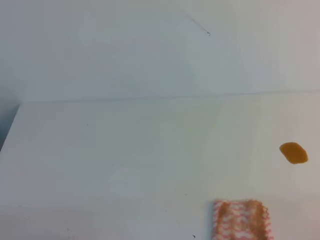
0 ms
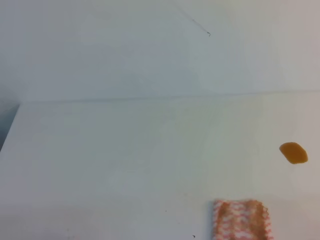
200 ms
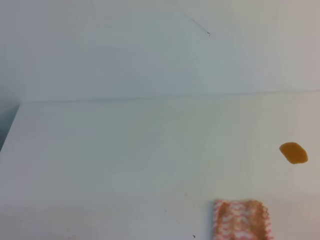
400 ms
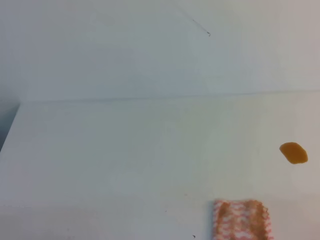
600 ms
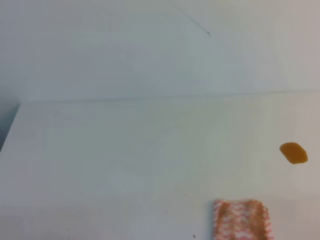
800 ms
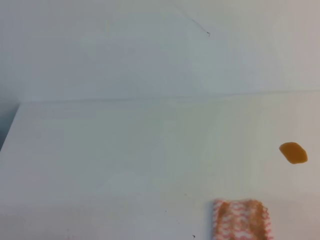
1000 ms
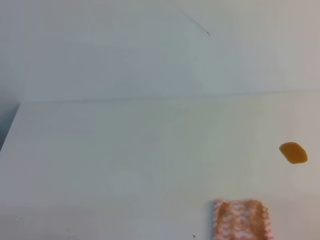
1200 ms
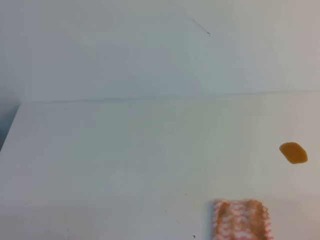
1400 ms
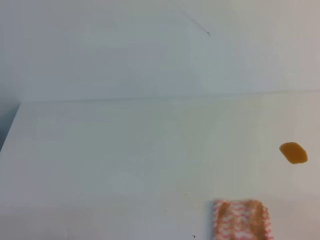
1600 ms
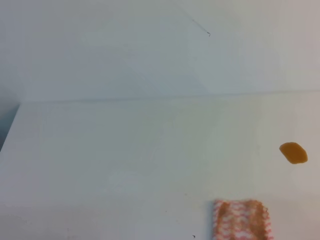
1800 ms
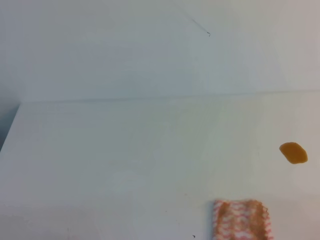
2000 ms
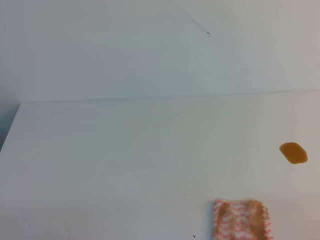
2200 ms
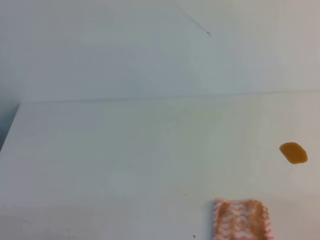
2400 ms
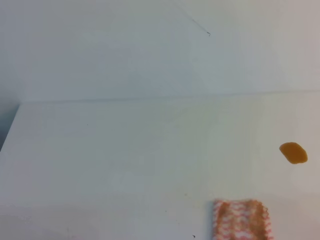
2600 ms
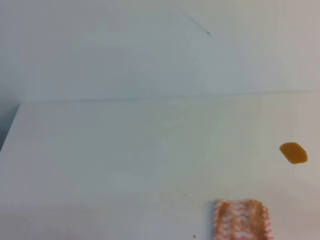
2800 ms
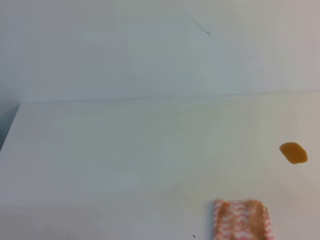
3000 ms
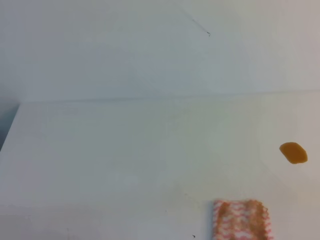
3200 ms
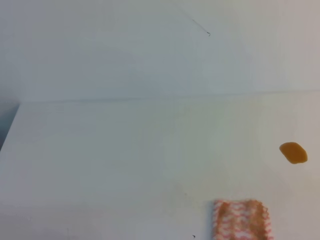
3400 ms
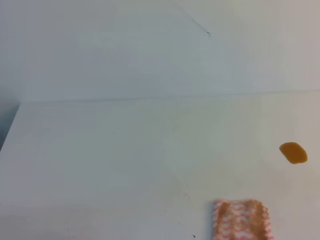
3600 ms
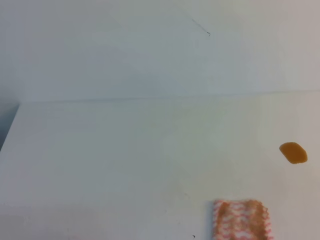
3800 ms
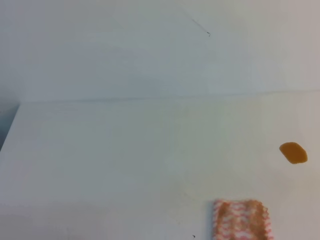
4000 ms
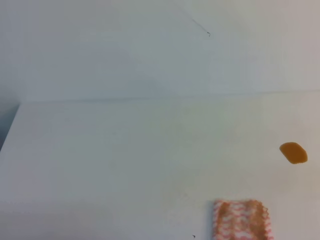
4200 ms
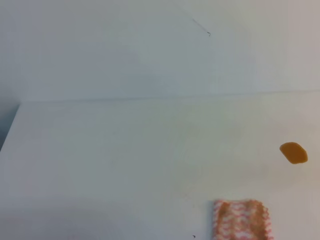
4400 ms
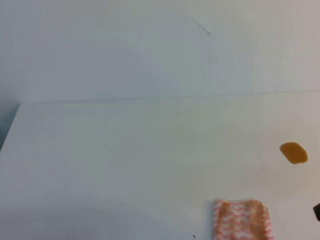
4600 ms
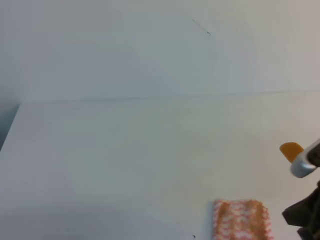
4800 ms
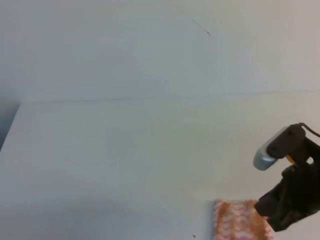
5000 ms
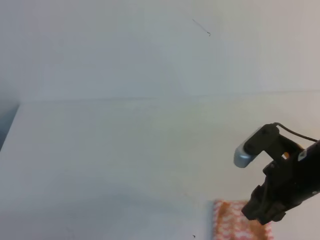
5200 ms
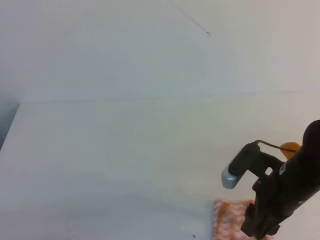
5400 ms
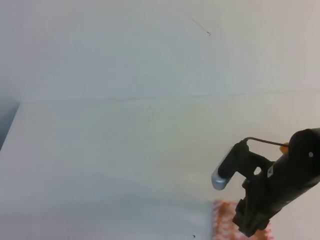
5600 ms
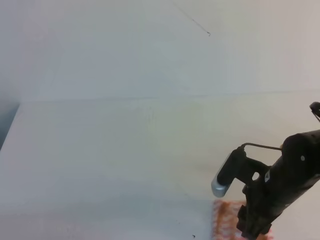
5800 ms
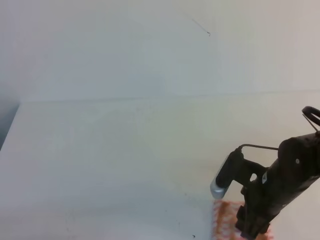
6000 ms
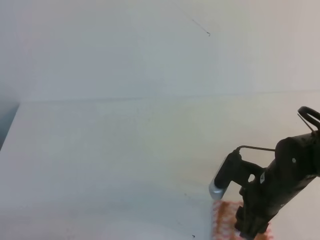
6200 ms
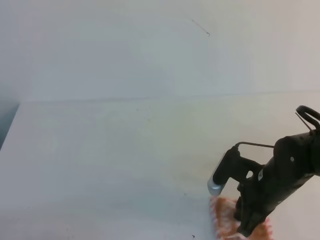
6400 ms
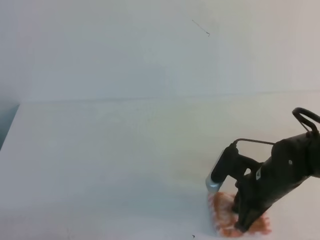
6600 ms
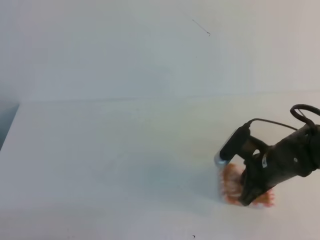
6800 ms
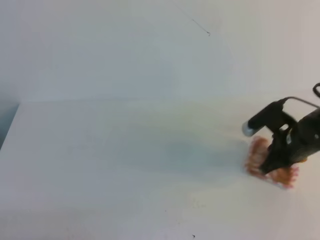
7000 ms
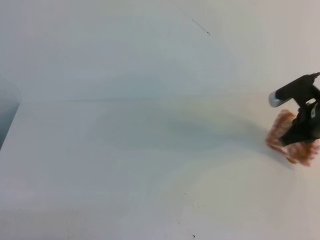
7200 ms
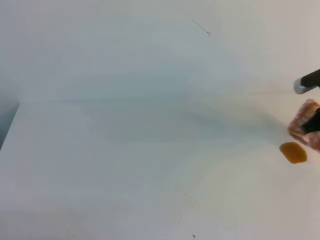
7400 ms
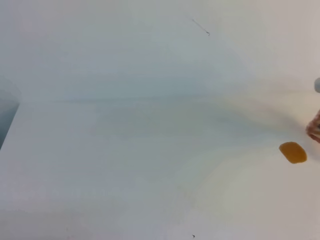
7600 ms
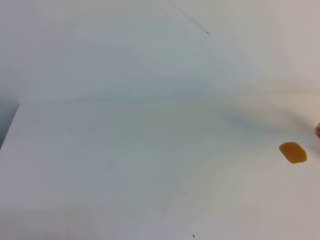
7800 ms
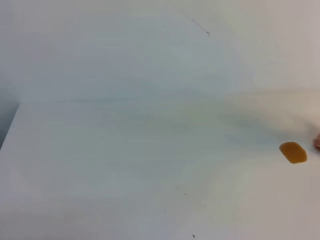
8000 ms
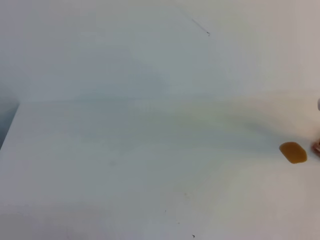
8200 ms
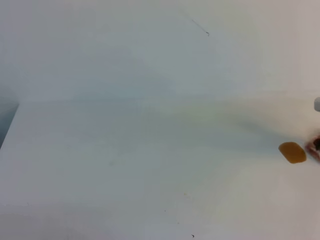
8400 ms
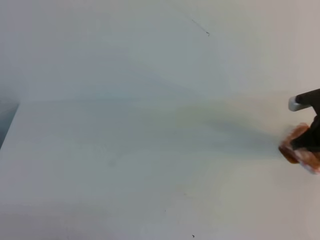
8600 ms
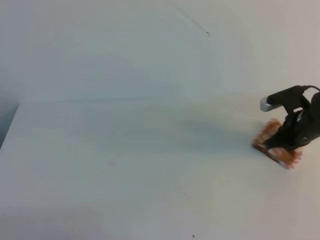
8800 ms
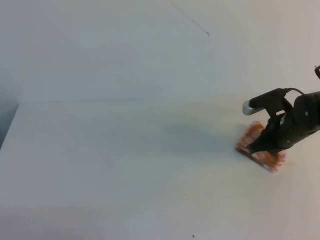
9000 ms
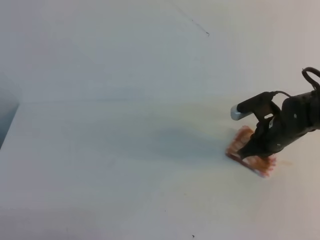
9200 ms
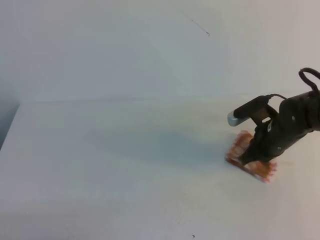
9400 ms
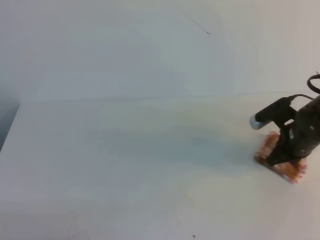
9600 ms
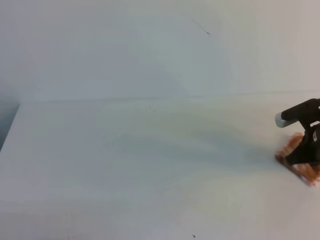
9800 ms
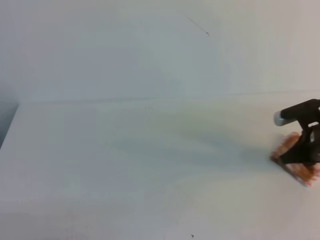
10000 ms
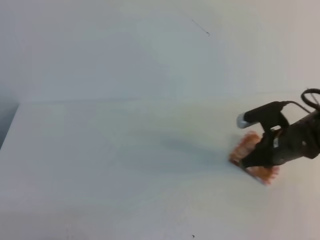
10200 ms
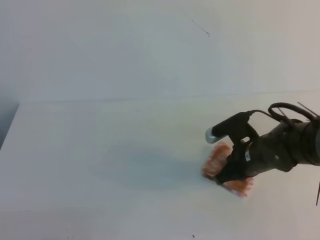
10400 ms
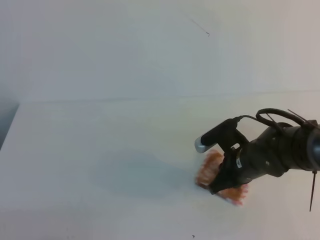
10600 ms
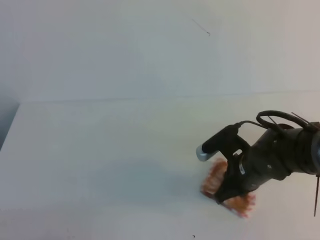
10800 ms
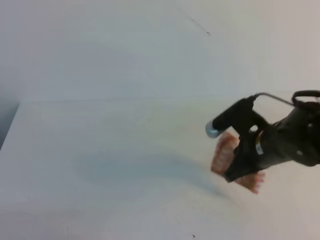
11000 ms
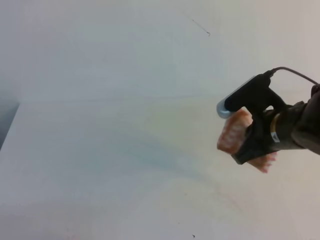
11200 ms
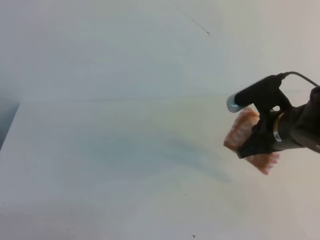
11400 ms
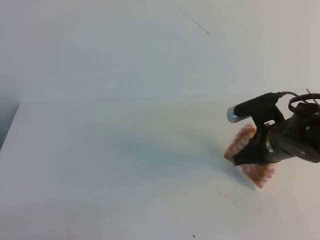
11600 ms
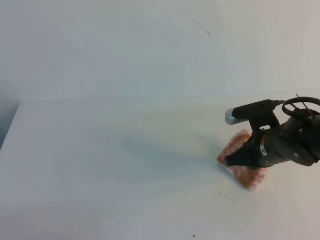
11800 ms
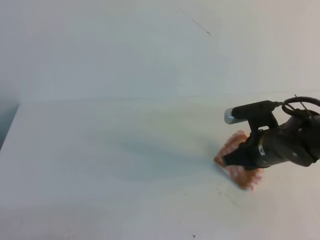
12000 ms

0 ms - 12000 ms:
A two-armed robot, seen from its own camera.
0 ms - 1600 ms: Both grippers stay put.
4400 ms - 6000 ms: The right gripper travels downward, to the left and forward by approximately 20 cm, and opens its fingers.
6000 ms - 7600 ms: The right gripper goes about 20 cm to the right and forward, and closes its fingers.
7600 ms - 9000 ms: The right gripper shifts some 15 cm to the left and downward.
9000 ms - 10400 ms: The right gripper goes roughly 10 cm to the left and backward.
10400 ms - 12000 ms: The right gripper heads upward, covering roughly 5 cm.

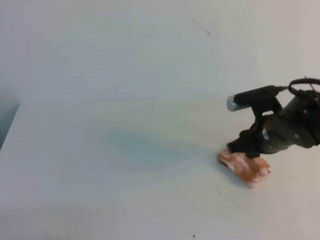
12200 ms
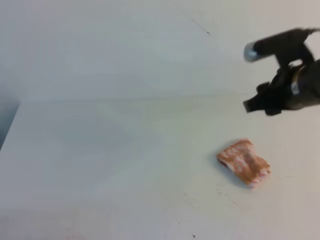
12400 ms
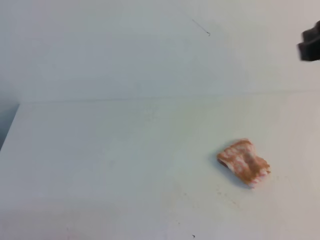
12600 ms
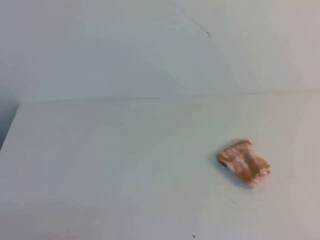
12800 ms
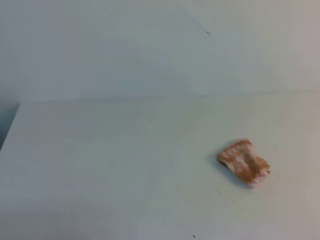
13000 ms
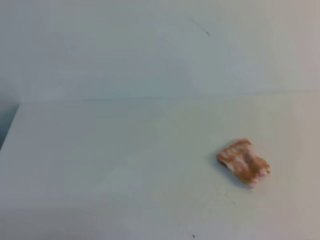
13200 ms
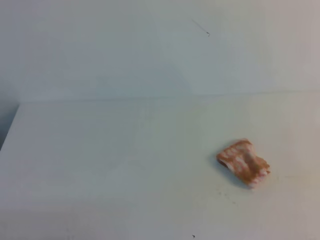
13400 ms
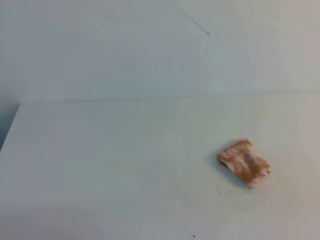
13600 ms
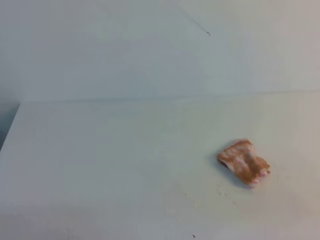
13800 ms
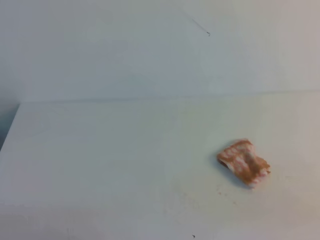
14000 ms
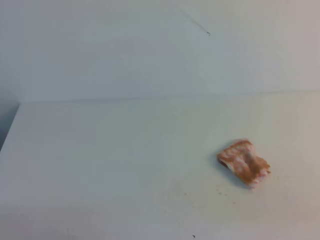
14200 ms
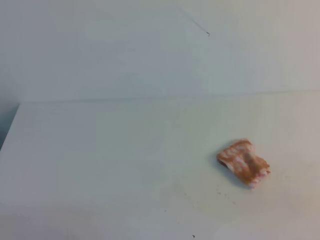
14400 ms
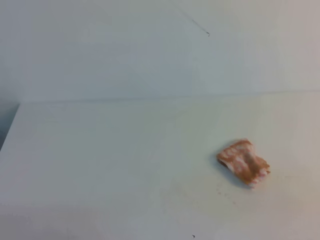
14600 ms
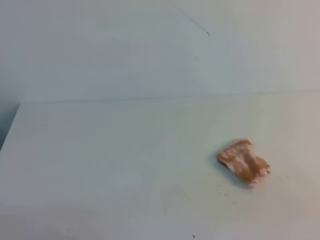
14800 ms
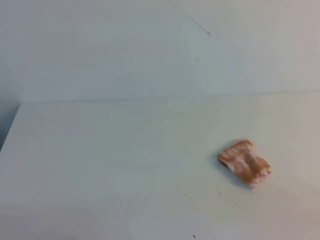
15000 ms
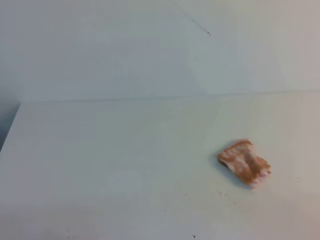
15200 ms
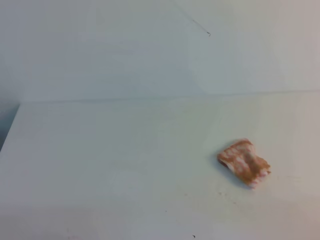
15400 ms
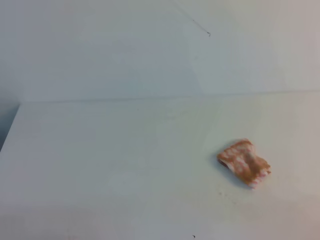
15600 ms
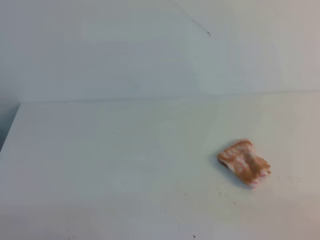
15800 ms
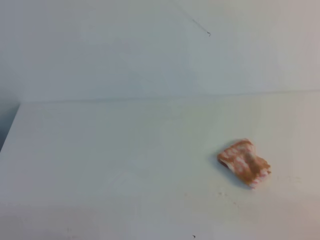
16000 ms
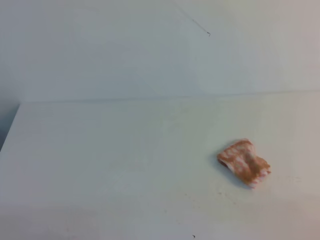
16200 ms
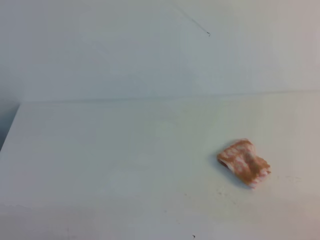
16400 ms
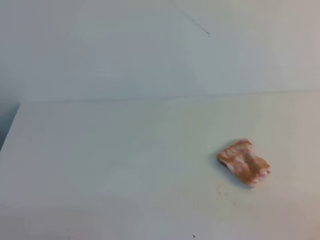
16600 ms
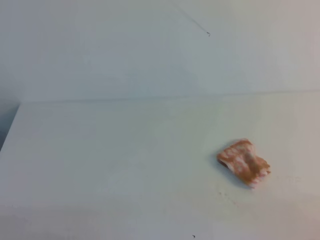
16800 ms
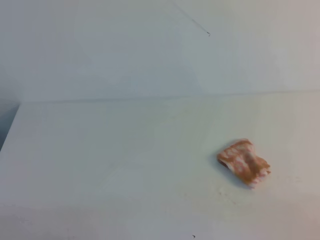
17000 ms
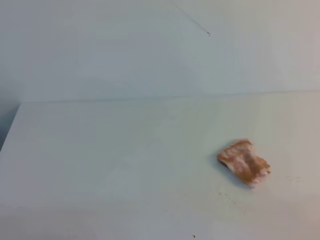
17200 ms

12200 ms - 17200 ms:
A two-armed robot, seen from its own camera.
12200 ms - 13800 ms: The right gripper moves backward and to the right, roughly 30 cm, and closes up.
15600 ms - 17200 ms: Neither gripper changes place.

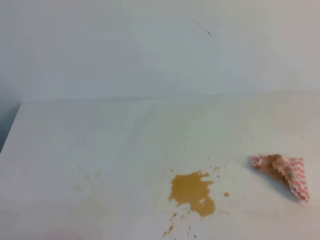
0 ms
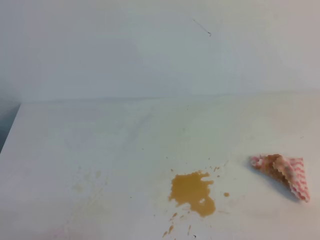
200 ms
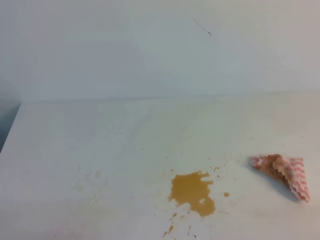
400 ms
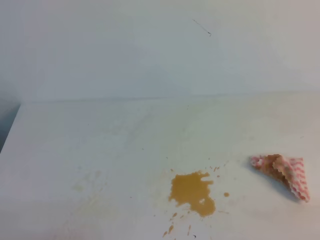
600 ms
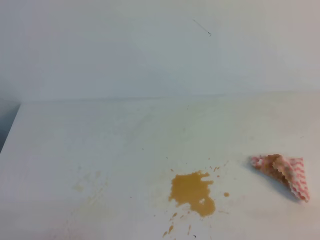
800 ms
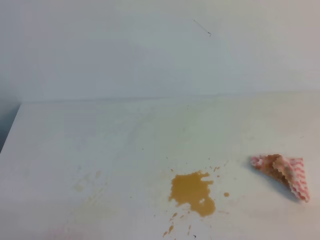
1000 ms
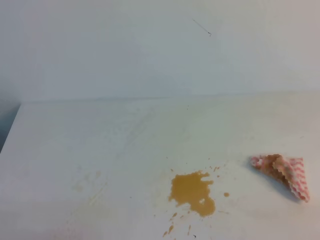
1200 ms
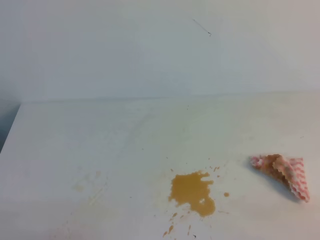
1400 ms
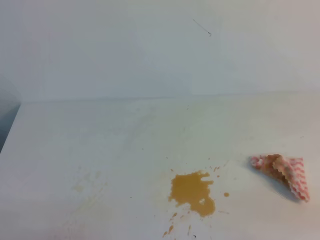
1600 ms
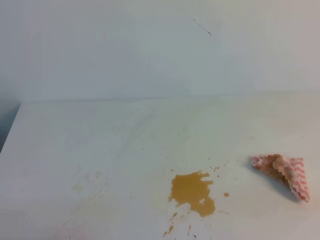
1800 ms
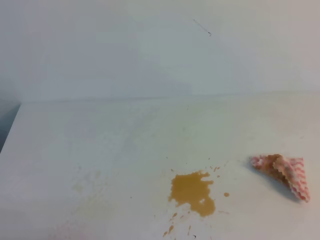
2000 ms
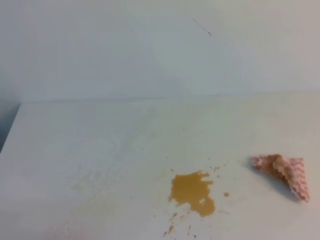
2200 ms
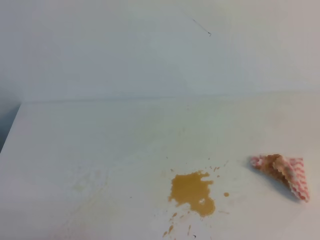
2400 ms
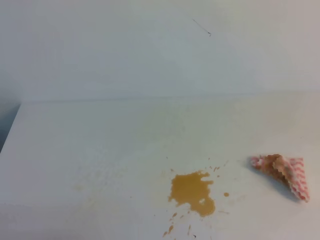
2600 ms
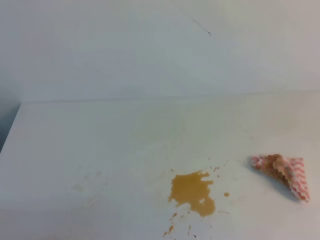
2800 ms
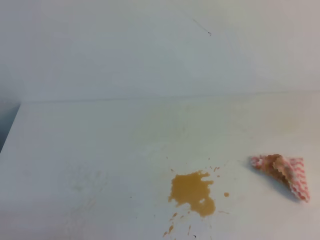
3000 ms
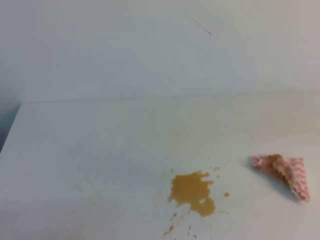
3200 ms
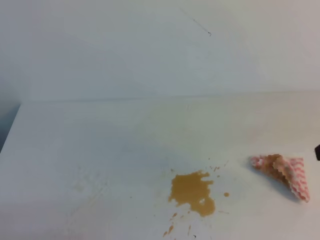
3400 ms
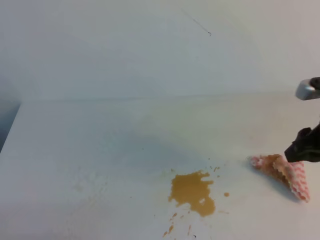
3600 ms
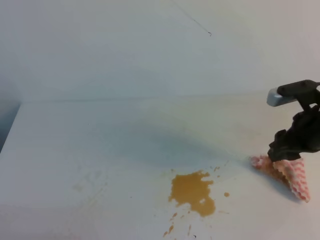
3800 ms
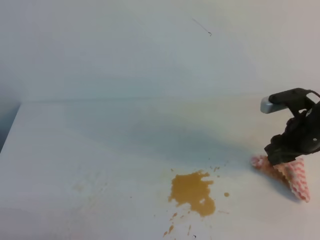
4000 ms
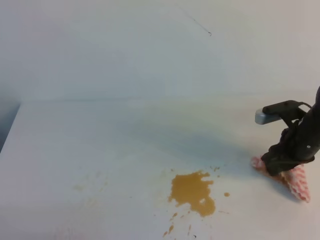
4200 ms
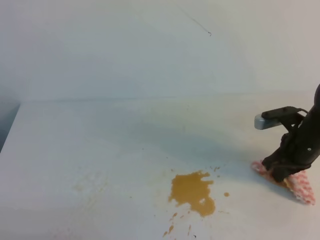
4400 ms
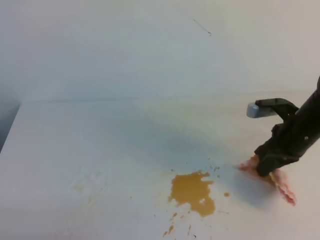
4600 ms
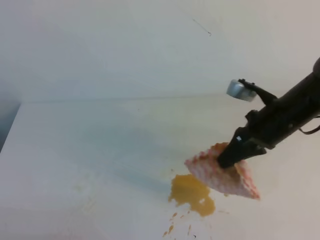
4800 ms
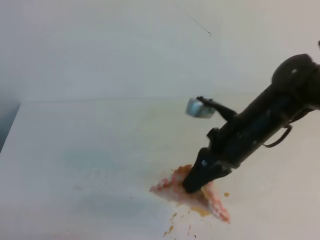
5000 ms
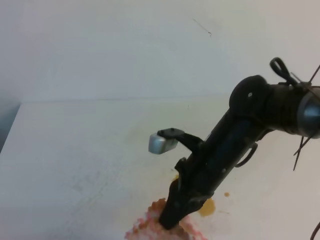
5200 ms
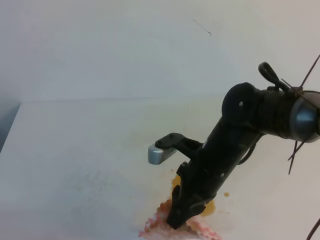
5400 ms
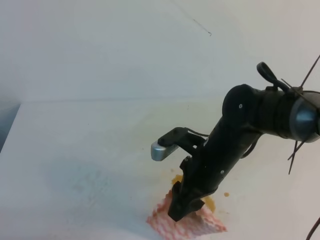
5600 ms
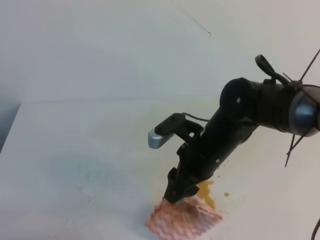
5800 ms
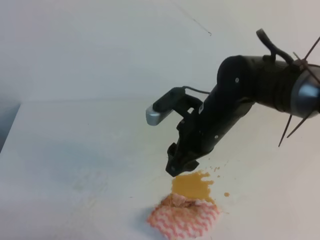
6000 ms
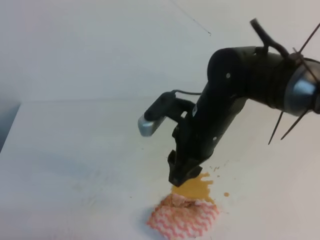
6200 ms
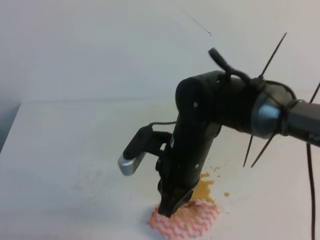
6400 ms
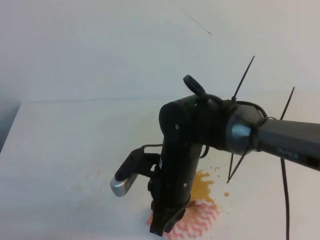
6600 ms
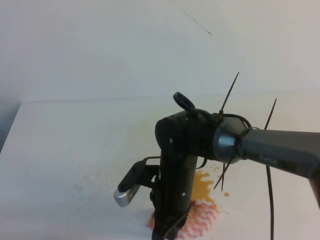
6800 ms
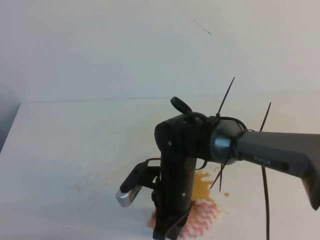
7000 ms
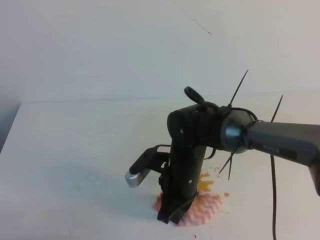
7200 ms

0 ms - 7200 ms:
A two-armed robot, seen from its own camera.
0 ms - 1400 ms: Both grippers stay about where they are.
2800 ms - 4400 ms: The right gripper moves forward and downward, about 35 cm, and opens up.
4400 ms - 5800 ms: The right gripper moves to the left, approximately 20 cm, and opens.
5800 ms - 7200 ms: The right gripper is displaced downward by about 5 cm, and closes up.
